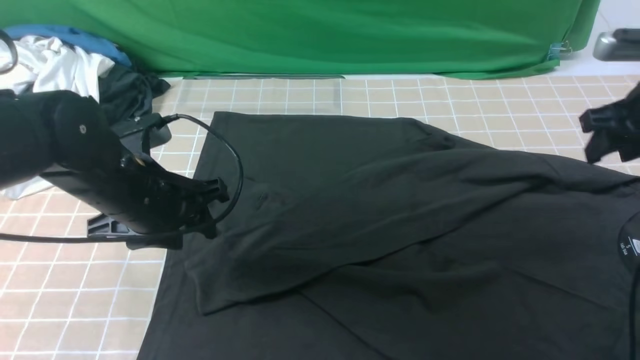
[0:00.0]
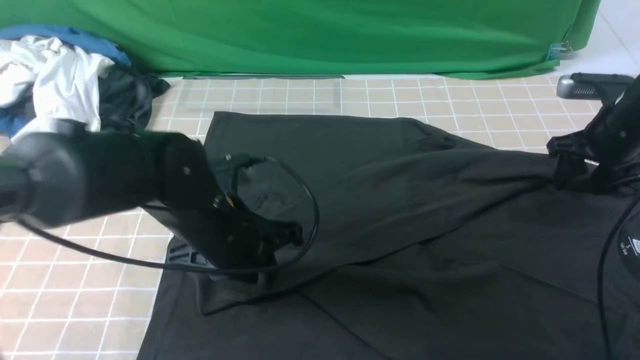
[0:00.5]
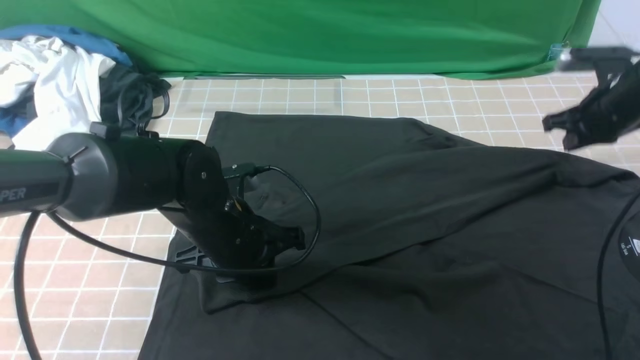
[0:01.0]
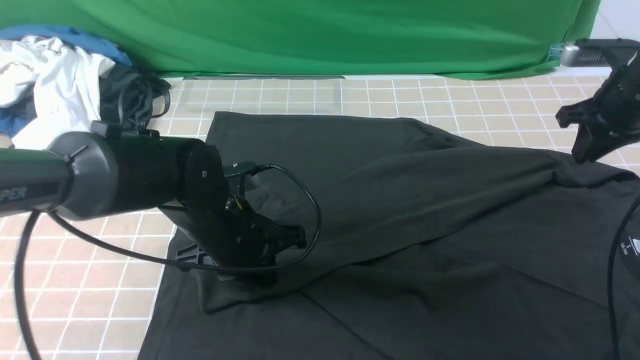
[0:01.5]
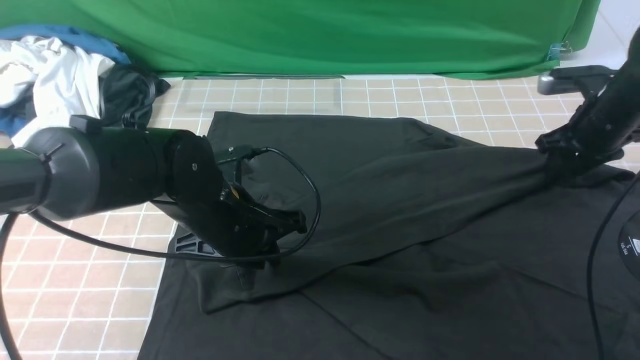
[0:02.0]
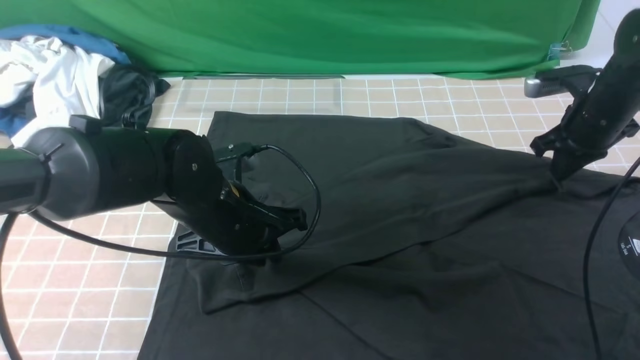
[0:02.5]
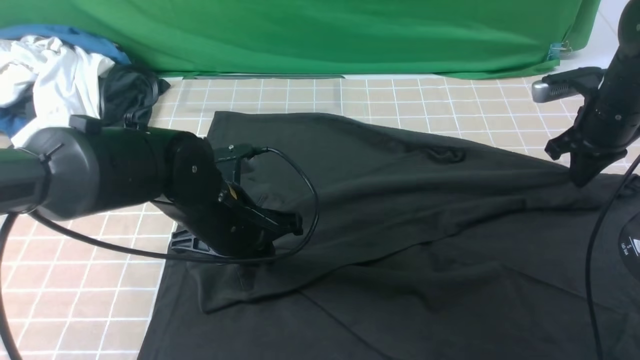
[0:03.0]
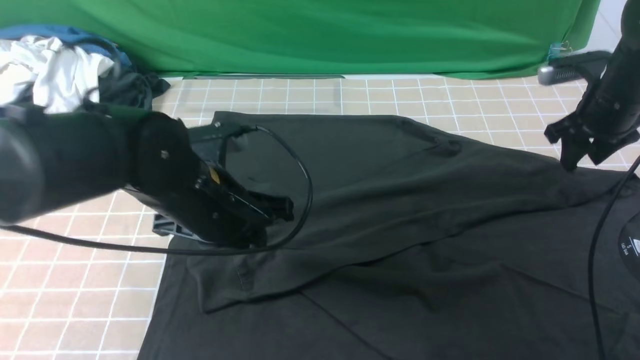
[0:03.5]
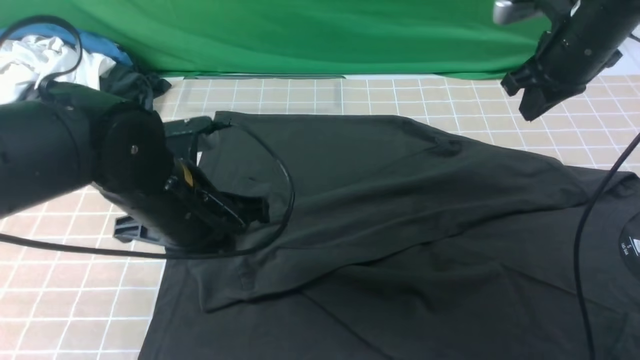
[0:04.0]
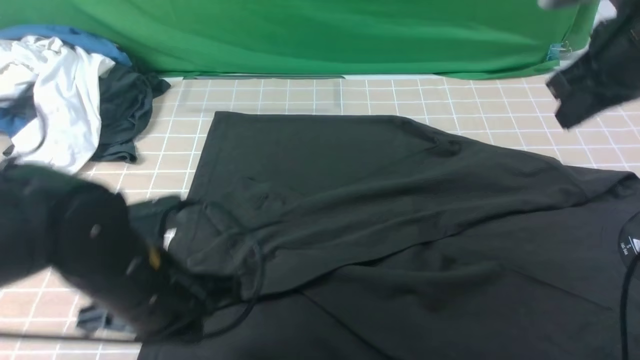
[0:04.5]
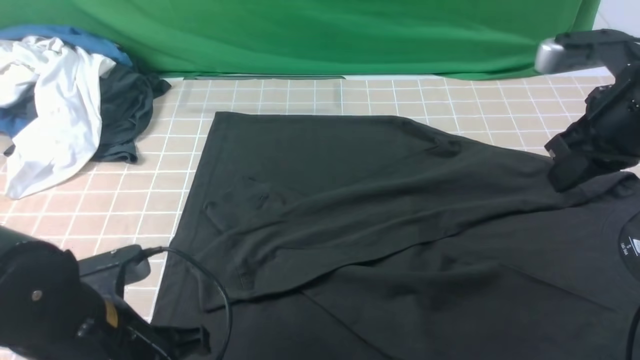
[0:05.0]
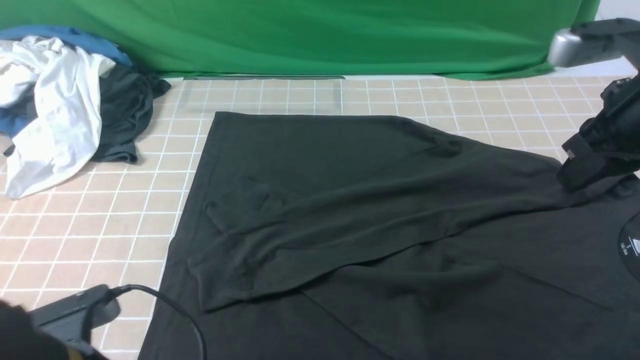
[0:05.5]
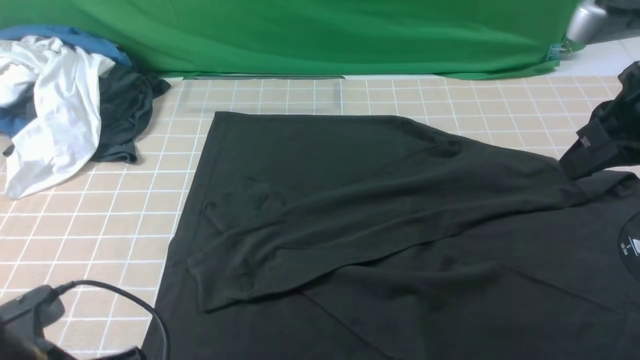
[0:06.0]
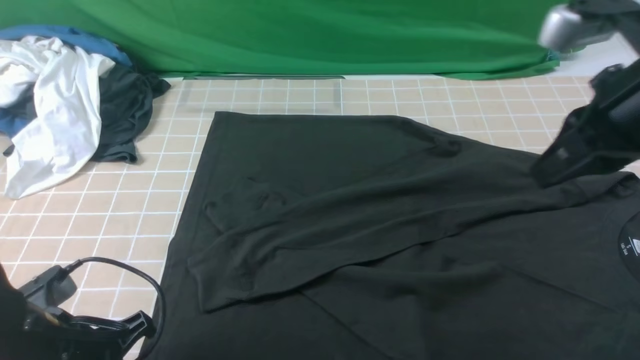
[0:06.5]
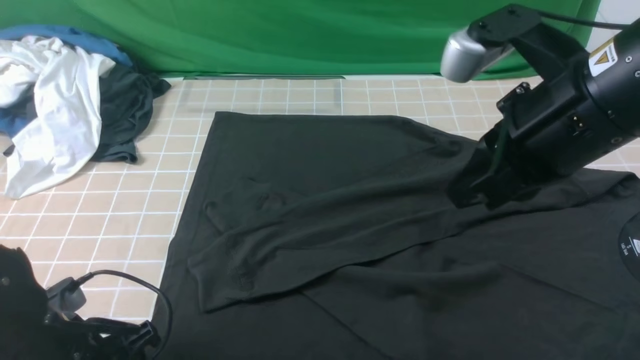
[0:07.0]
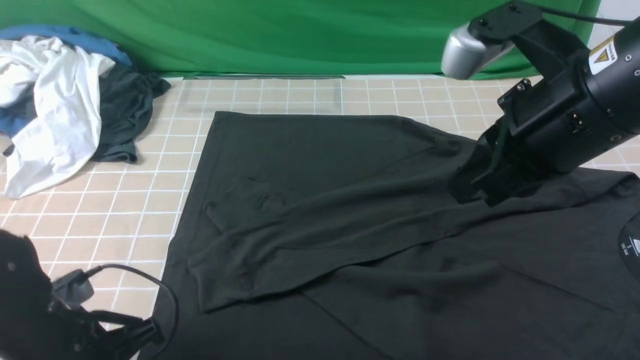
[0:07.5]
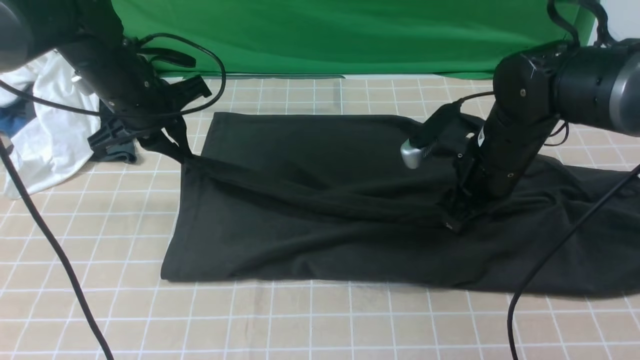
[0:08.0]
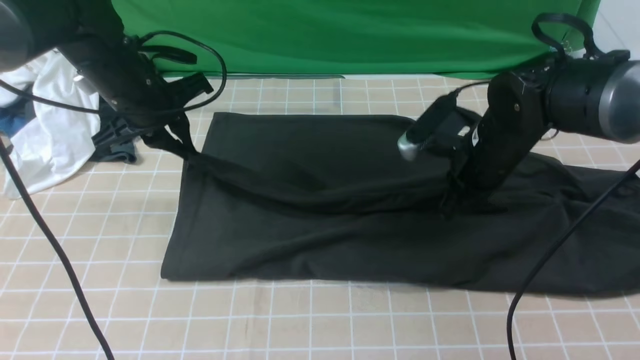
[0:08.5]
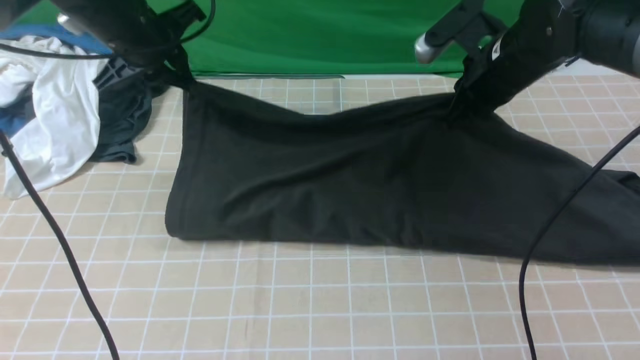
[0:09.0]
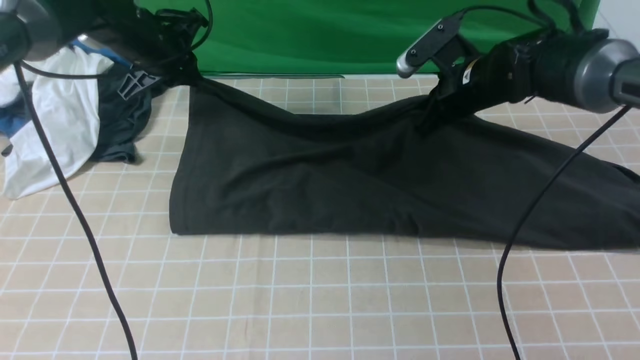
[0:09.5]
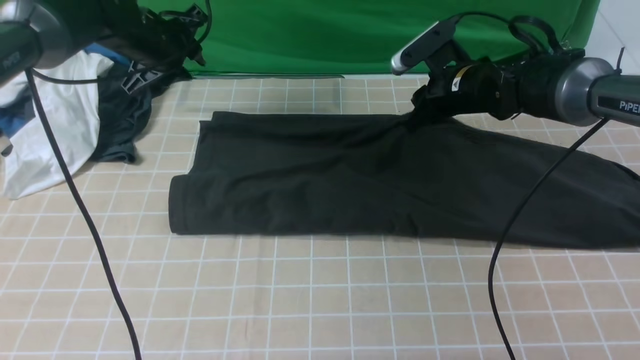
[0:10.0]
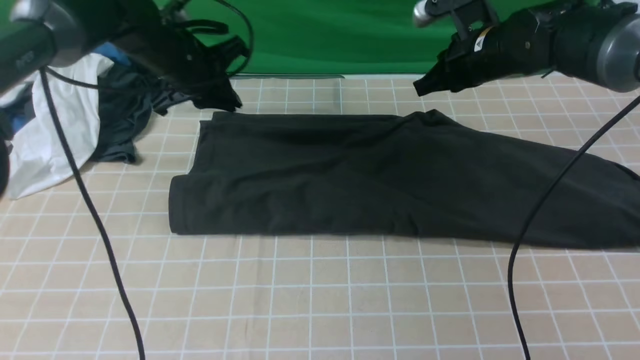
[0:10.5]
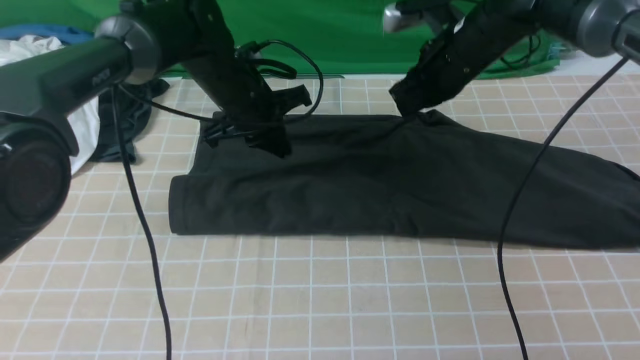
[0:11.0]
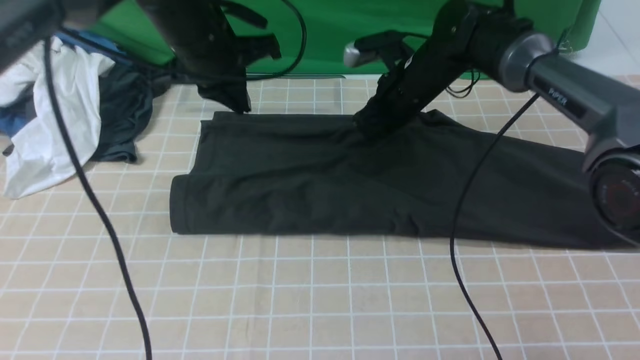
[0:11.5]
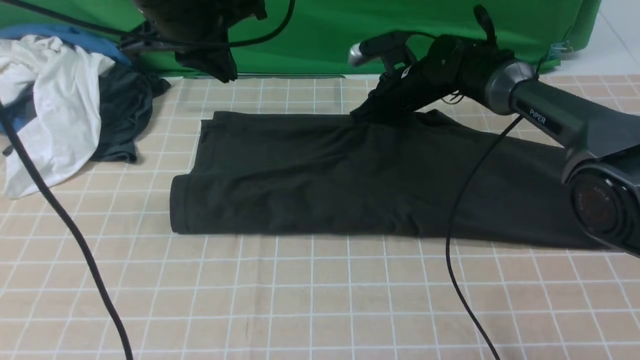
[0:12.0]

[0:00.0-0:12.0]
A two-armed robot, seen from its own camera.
Step, 0:00.5 to 0:07.5: use both arms simultaneously to clamp the lower edge of the clothing fabric.
Step, 0:08.0 to 0:10.0: use both arms to drag the lower edge of the fabric forward and fold it over the upper edge.
0:00.0 to 0:02.0: The right gripper shifts about 10 cm downward and forward, and closes and opens again. Meanwhile the left gripper moves to the right, about 5 cm, and closes.
0:02.0 to 0:04.0: The left gripper is displaced upward by roughly 5 cm, while the right gripper heads upward and to the left, covering about 15 cm, and closes up.
0:04.0 to 0:06.0: The right gripper goes roughly 15 cm backward; the left gripper goes roughly 15 cm backward and to the left.
0:06.0 to 0:08.0: The right gripper moves downward, forward and to the left, approximately 20 cm, and opens its fingers; the left gripper moves forward, some 30 cm, and opens, then closes once more.
0:08.0 to 0:10.0: Both grippers move forward, about 10 cm. The right gripper closes its fingers; the left gripper opens up.
0:10.0 to 0:12.0: The right gripper is displaced forward by about 5 cm, and closes its fingers, while the left gripper is displaced upward, backward and to the right by some 20 cm, and closes.

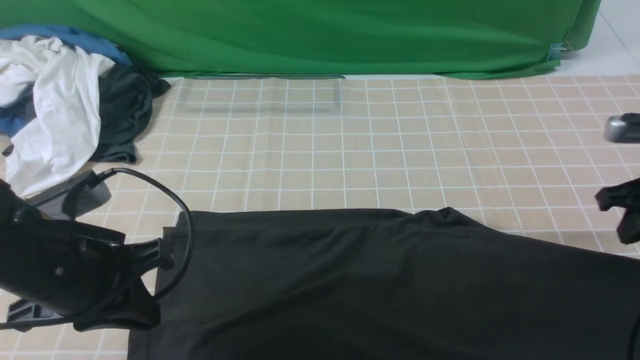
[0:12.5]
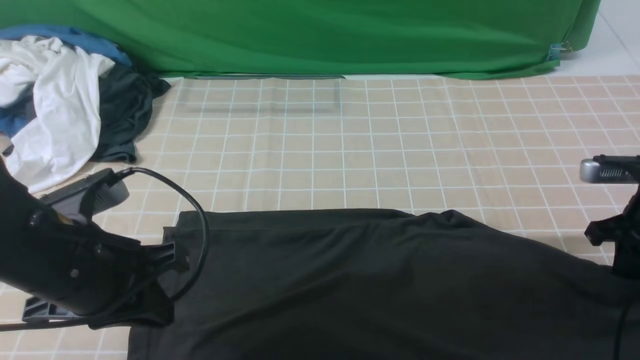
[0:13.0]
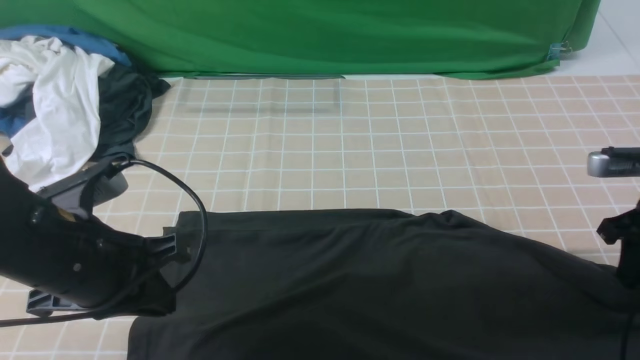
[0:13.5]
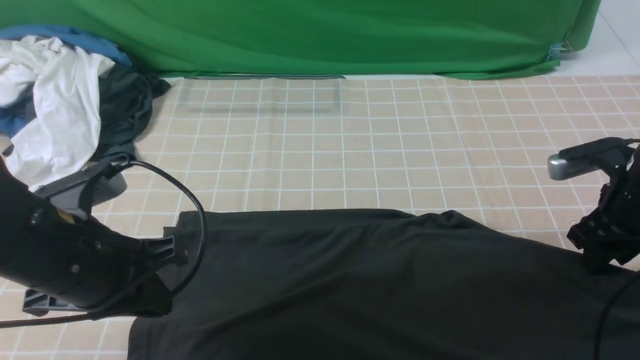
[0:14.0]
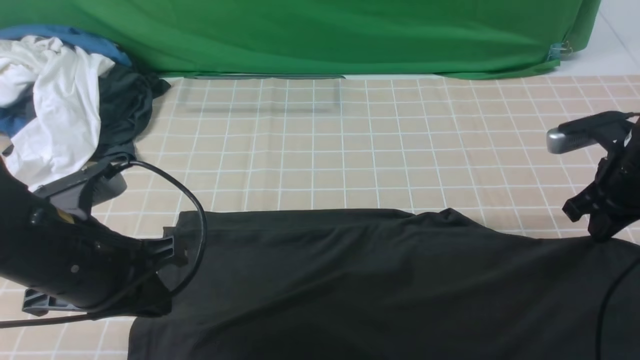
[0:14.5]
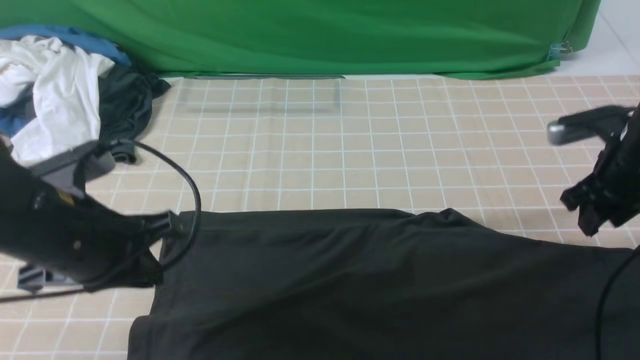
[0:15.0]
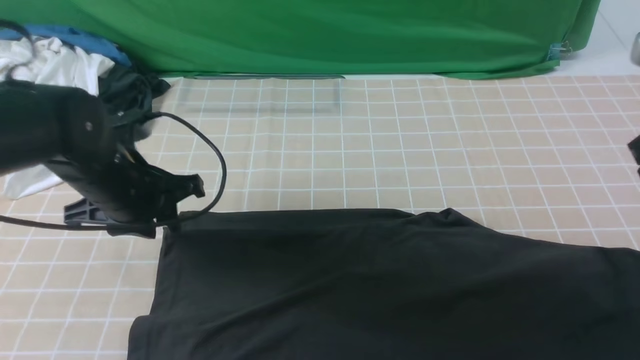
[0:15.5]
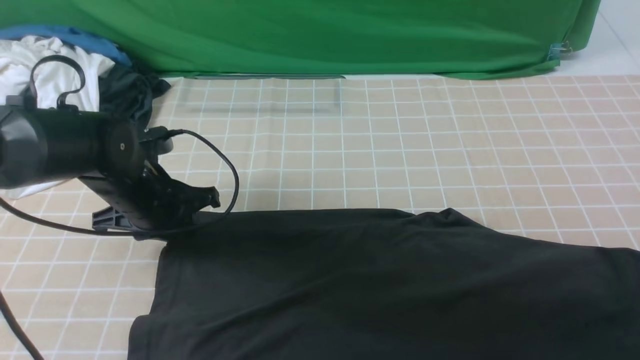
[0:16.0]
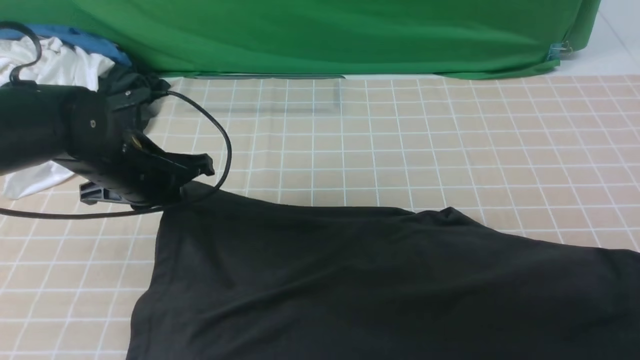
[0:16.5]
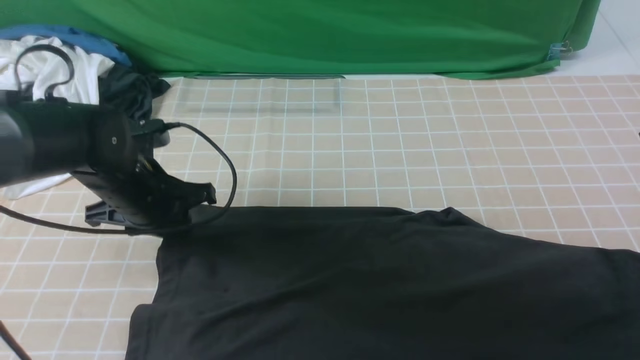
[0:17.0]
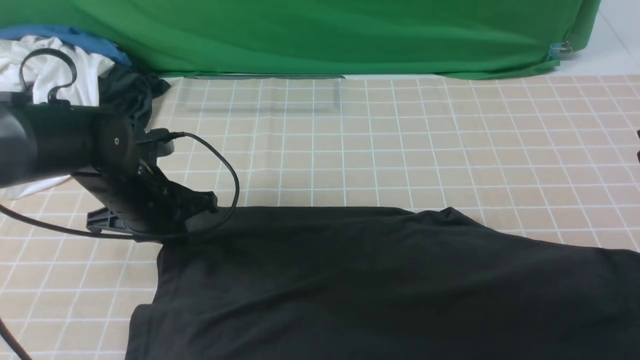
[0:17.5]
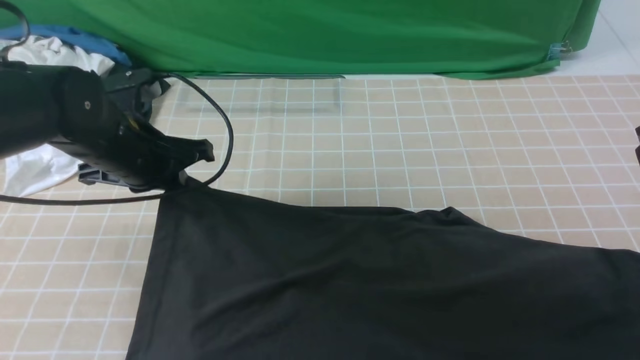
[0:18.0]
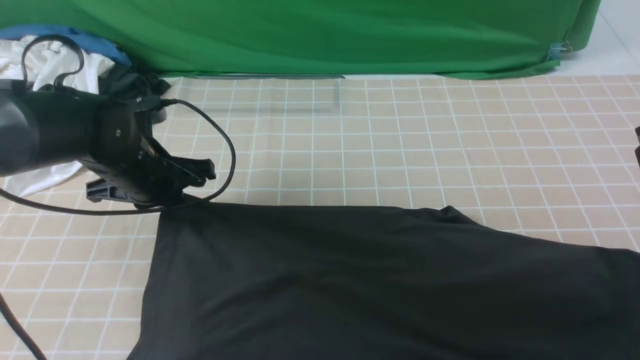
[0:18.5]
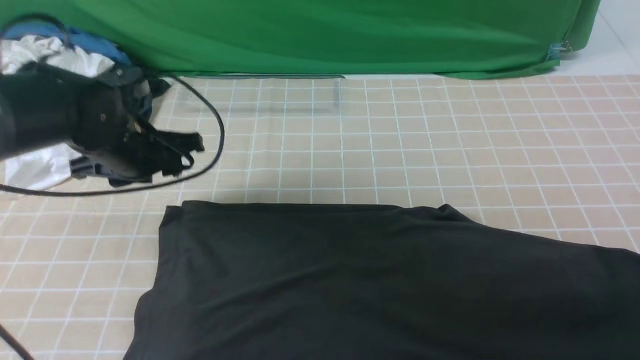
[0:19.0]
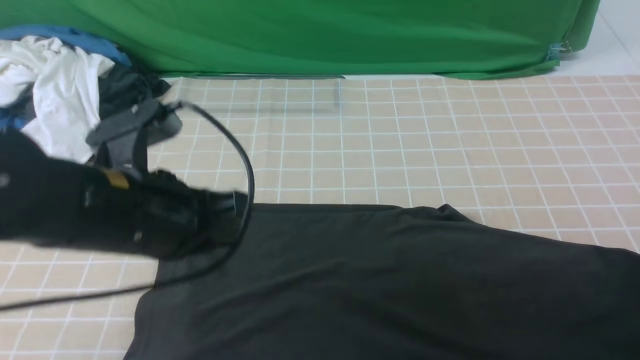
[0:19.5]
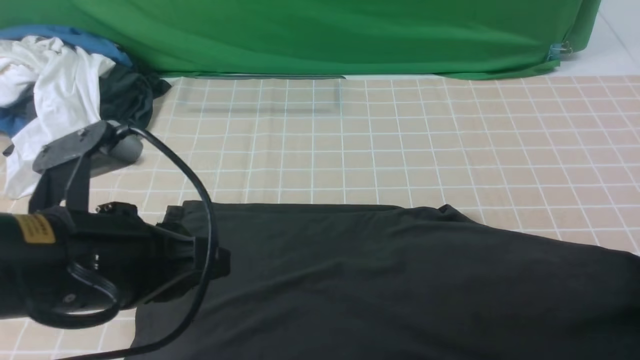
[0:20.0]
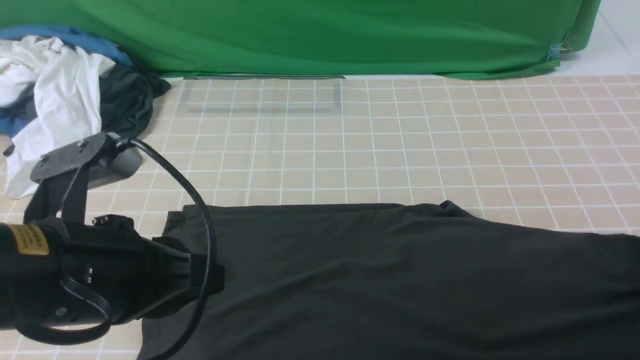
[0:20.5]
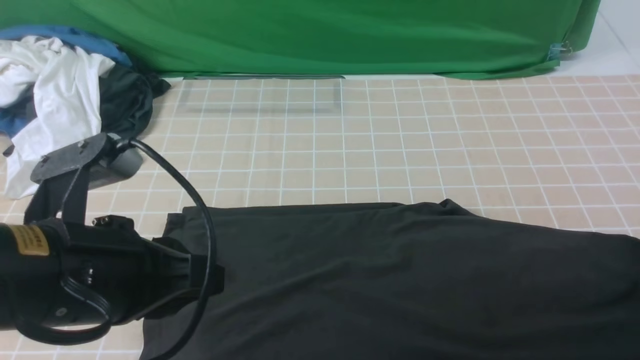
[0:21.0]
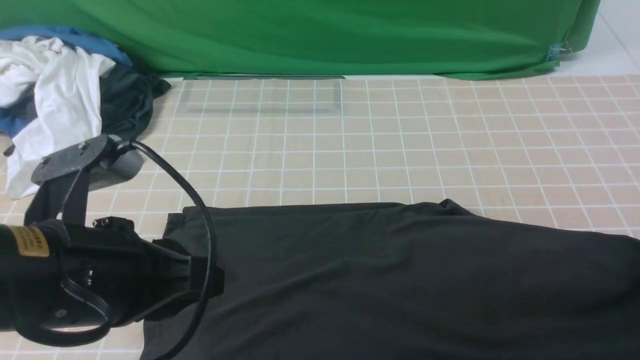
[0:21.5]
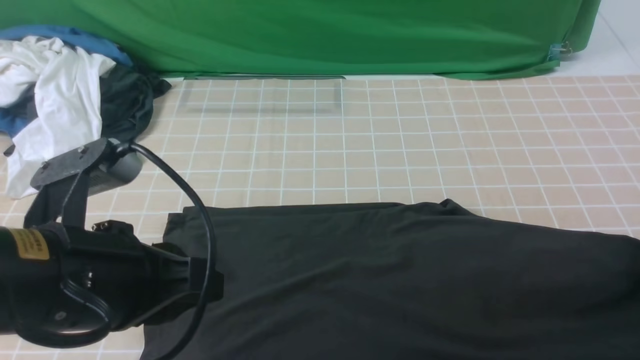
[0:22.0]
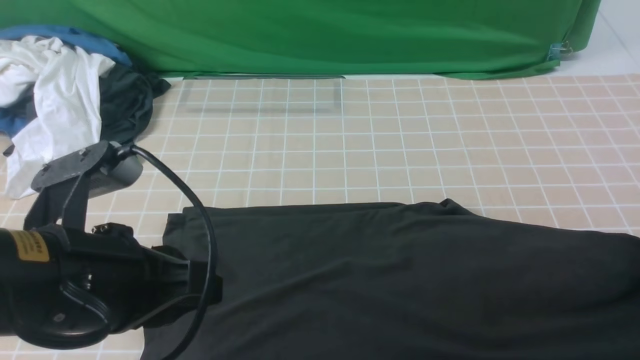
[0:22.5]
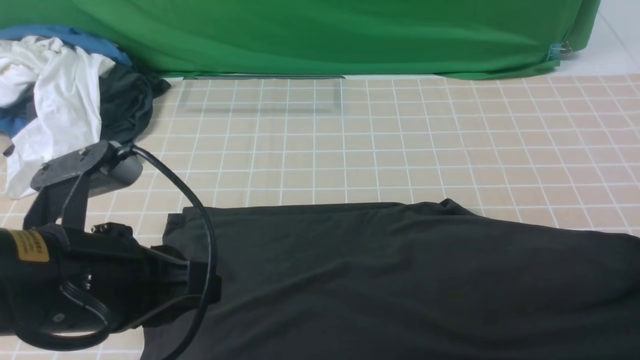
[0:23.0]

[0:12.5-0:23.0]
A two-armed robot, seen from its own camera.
0:12.5 to 0:14.5: The grippers both shift backward and downward by some 10 cm. The right gripper opens, then closes again.
0:14.5 to 0:16.5: The left gripper is displaced forward by some 15 cm, and opens and closes again; the right gripper is displaced upward and backward by some 20 cm.
0:16.5 to 0:19.0: The right gripper opens its fingers, while the left gripper opens.
0:19.0 to 0:21.0: The right gripper shifts about 15 cm downward and to the right, and closes, then opens again. Meanwhile the left gripper shifts some 20 cm backward, and closes up.
